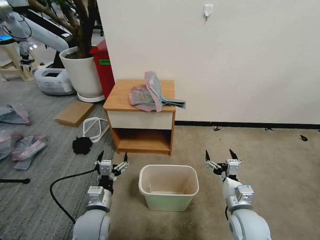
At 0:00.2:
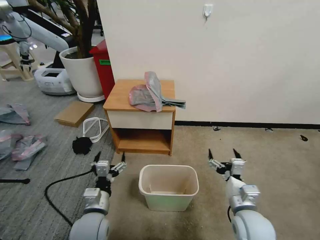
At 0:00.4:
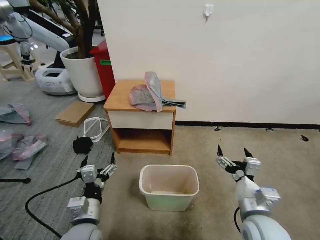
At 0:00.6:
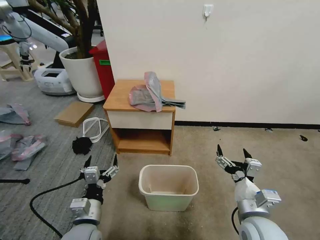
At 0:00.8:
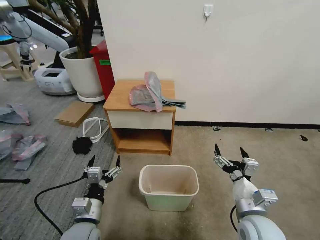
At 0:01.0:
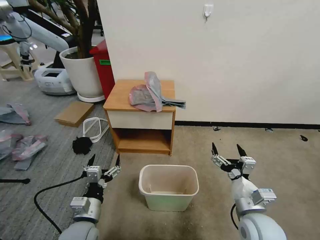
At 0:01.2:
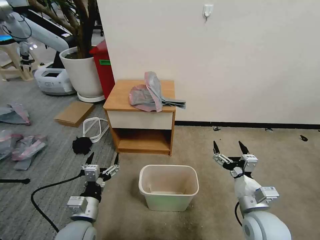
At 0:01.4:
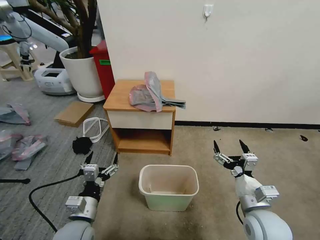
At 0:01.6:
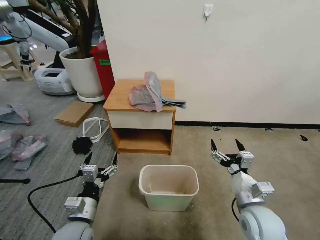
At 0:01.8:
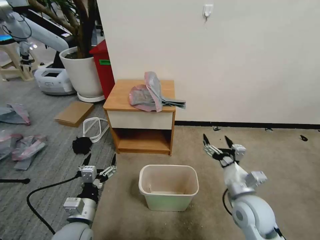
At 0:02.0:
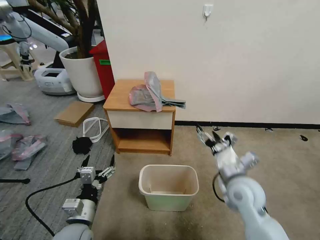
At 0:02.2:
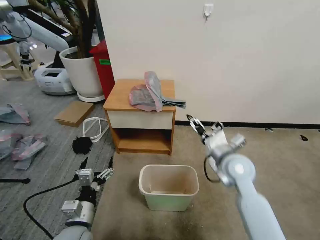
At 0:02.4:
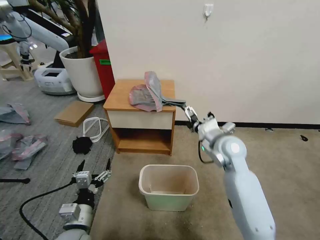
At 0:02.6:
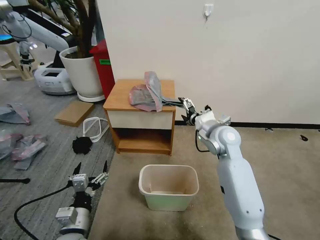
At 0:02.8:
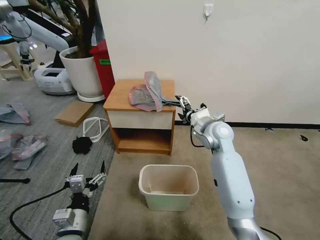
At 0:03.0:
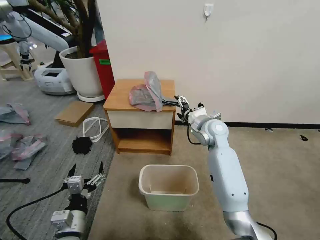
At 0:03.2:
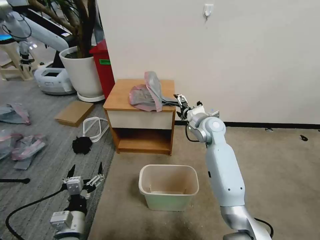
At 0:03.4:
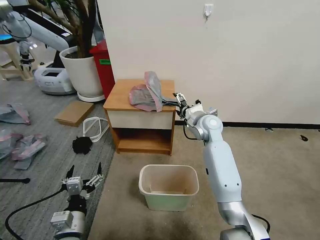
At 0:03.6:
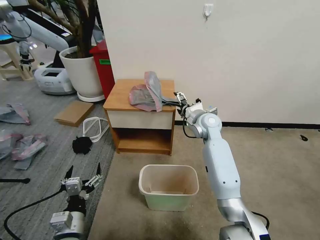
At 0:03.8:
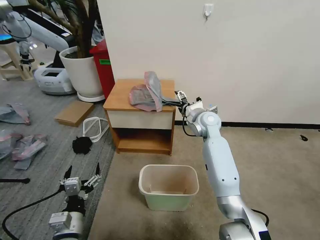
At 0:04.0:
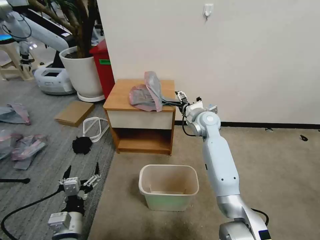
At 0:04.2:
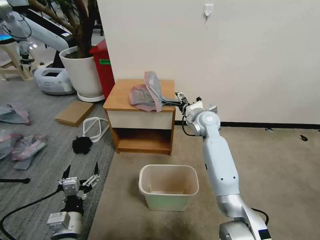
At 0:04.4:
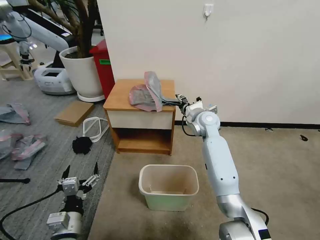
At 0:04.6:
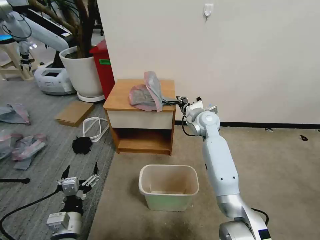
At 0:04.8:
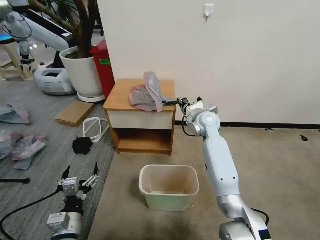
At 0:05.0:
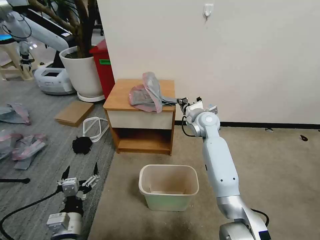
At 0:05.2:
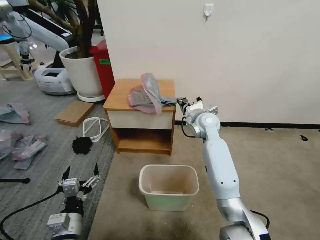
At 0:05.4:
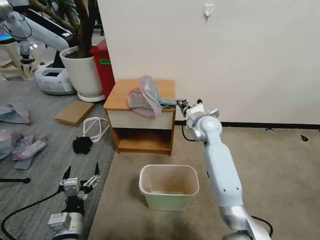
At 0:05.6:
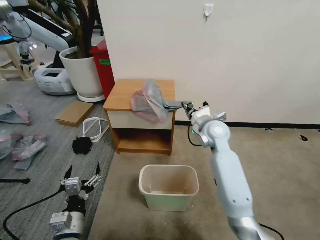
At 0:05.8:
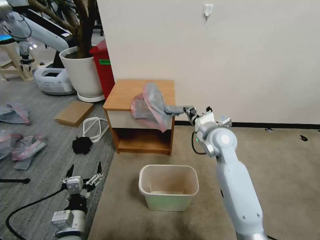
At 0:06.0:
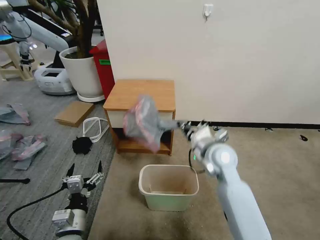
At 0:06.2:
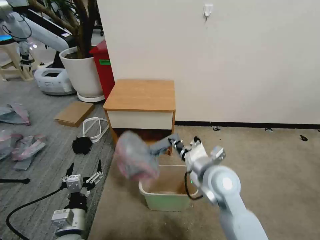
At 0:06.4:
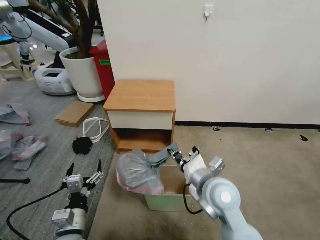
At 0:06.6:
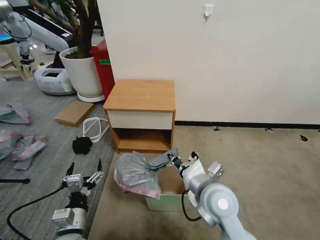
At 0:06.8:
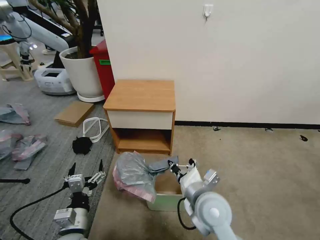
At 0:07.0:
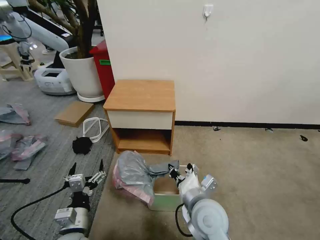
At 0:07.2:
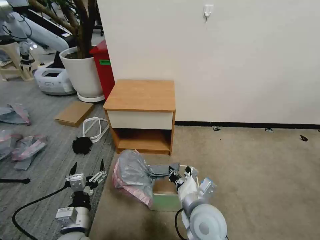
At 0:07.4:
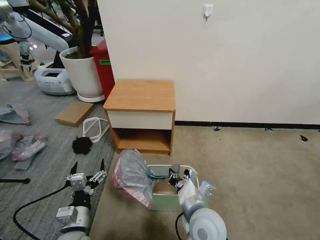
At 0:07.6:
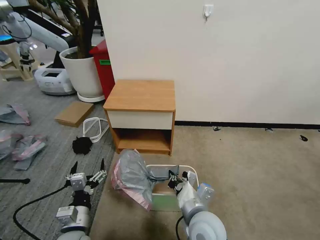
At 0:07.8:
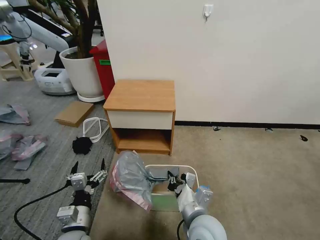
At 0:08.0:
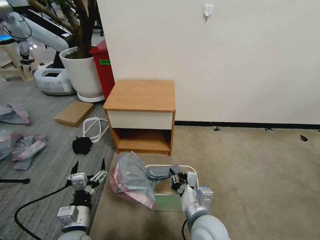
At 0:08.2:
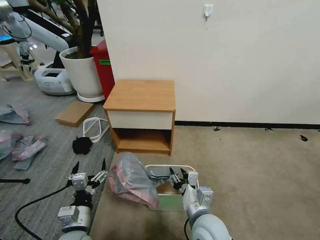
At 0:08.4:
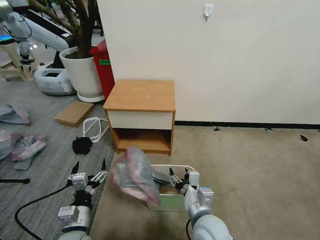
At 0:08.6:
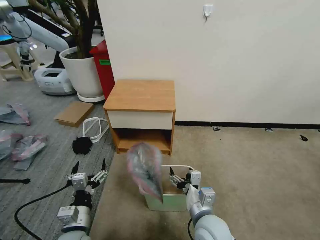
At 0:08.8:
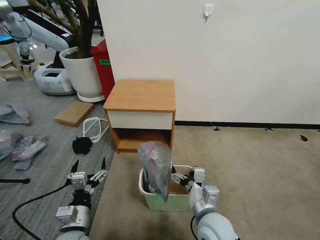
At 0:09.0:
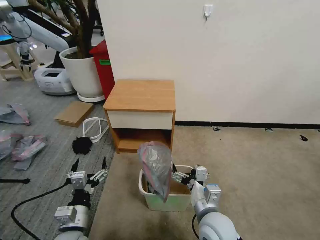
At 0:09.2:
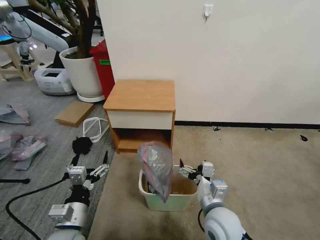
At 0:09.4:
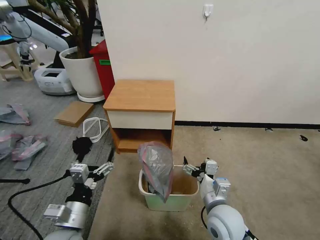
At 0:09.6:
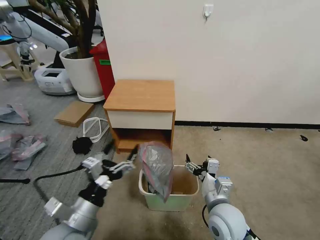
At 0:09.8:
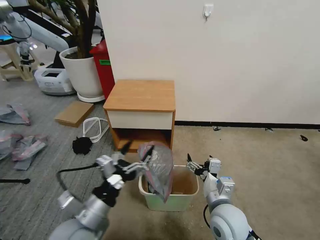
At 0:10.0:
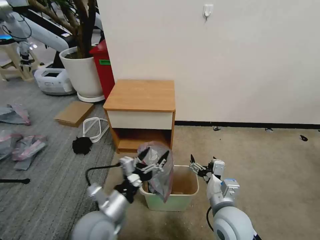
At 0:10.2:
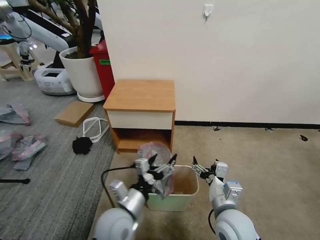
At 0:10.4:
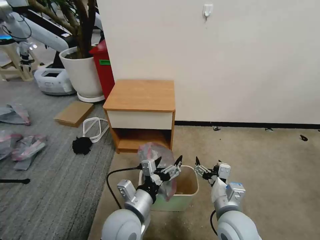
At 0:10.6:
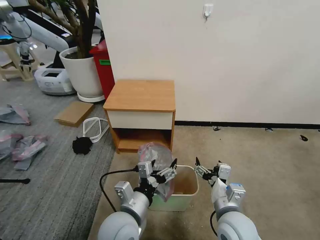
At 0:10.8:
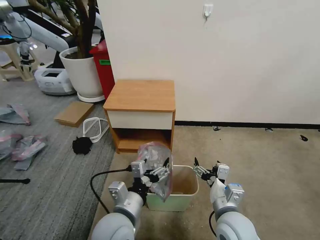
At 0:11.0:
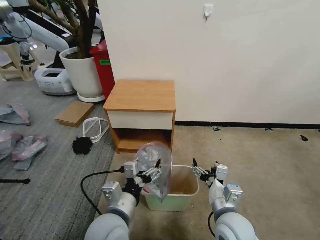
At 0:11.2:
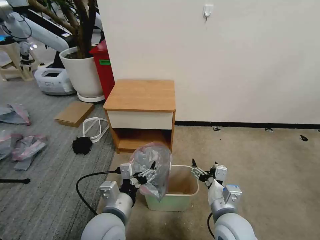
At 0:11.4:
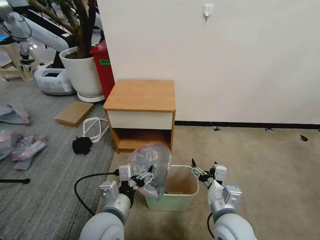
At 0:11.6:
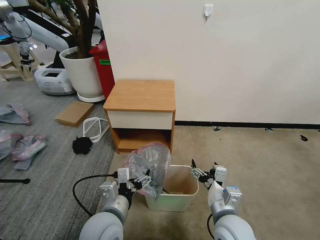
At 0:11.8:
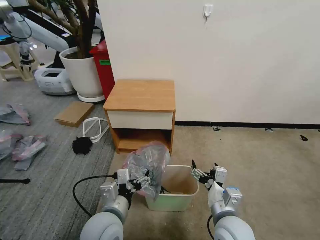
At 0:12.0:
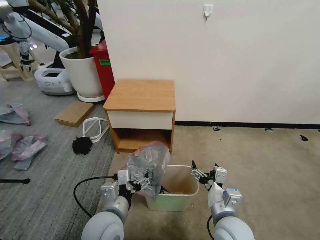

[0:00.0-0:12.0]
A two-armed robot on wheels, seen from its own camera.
Task of the whole recording: Pick up the garbage bag from the table and place it over the trash can.
0:01.6 to 0:03.0: The right gripper shifts roughly 25 cm forward.
0:03.0 to 0:04.4: The right gripper closes its fingers.
0:04.4 to 0:06.0: The right gripper heads backward, covering about 20 cm, and closes.
0:06.0 to 0:07.6: The right gripper is displaced backward and downward by about 15 cm.
0:07.6 to 0:09.0: The right gripper opens.
0:09.0 to 0:10.4: The left gripper goes some 15 cm to the right.

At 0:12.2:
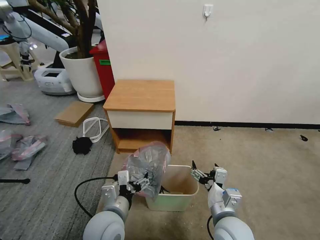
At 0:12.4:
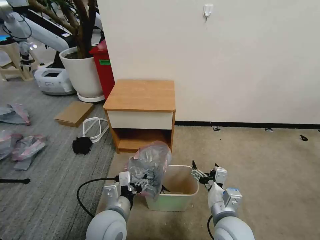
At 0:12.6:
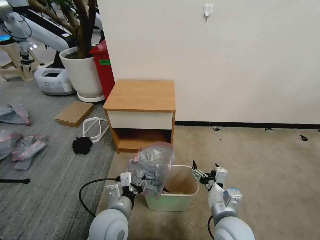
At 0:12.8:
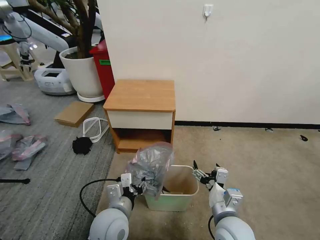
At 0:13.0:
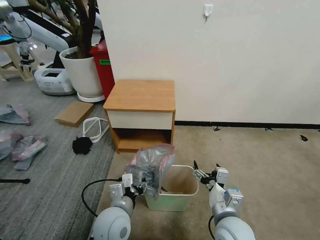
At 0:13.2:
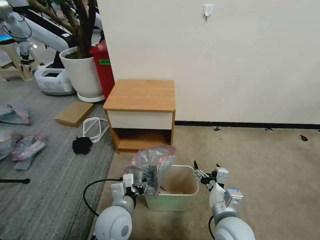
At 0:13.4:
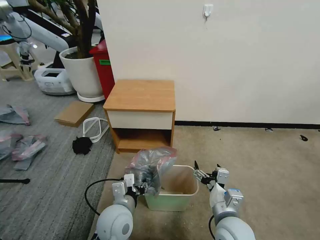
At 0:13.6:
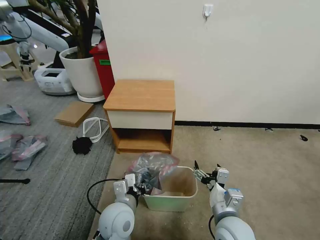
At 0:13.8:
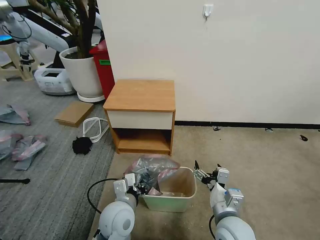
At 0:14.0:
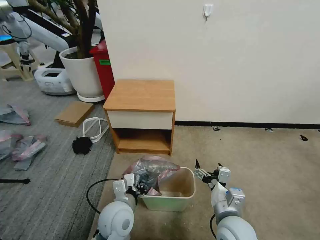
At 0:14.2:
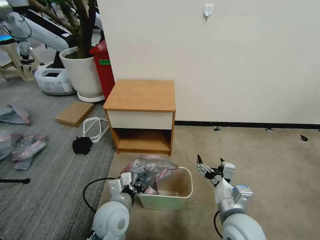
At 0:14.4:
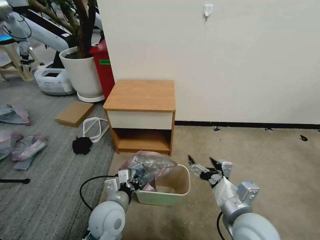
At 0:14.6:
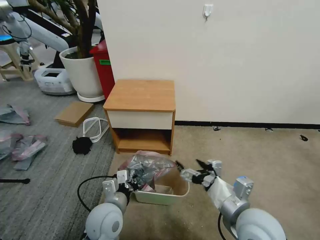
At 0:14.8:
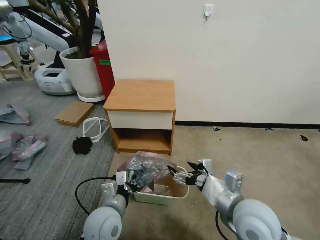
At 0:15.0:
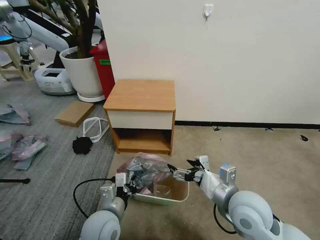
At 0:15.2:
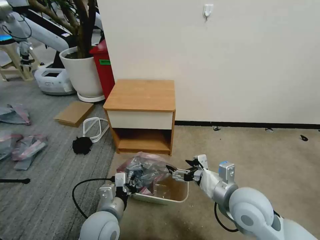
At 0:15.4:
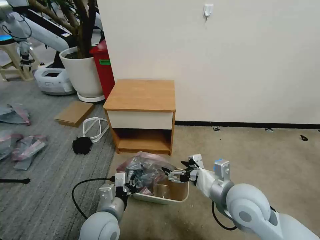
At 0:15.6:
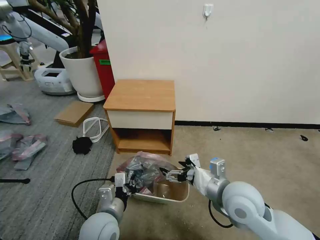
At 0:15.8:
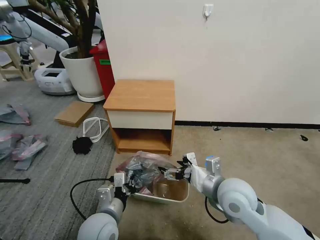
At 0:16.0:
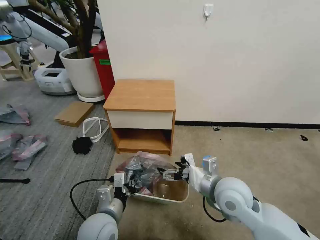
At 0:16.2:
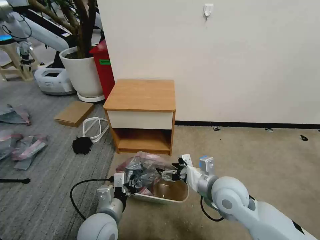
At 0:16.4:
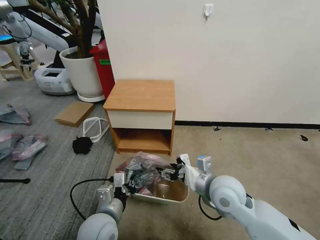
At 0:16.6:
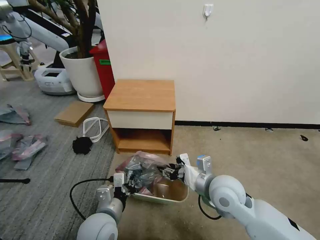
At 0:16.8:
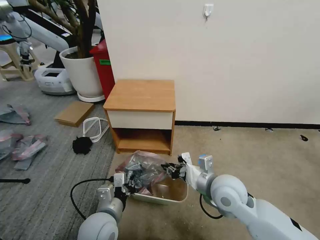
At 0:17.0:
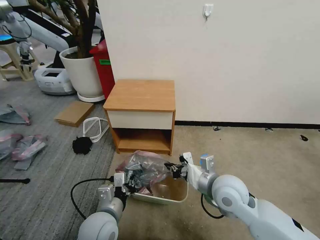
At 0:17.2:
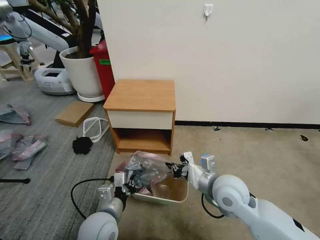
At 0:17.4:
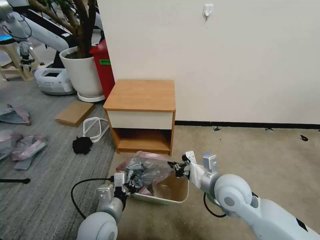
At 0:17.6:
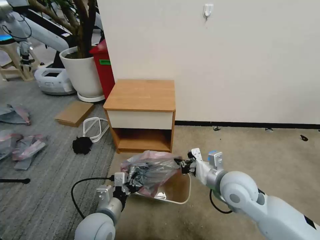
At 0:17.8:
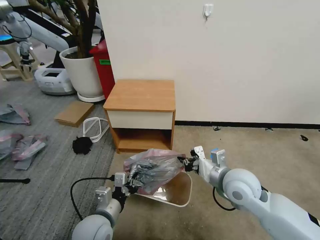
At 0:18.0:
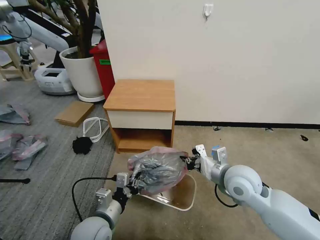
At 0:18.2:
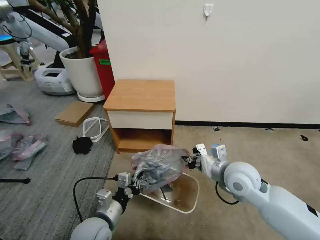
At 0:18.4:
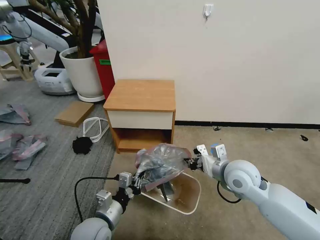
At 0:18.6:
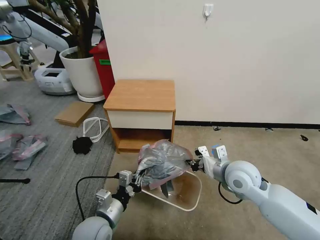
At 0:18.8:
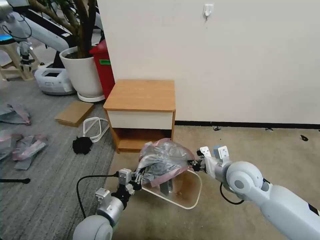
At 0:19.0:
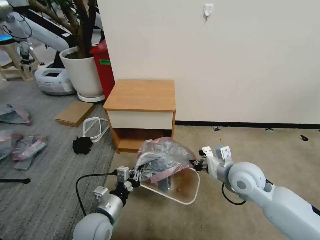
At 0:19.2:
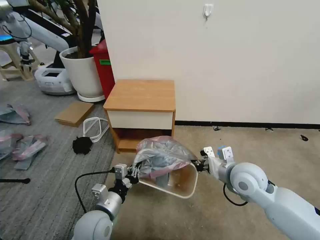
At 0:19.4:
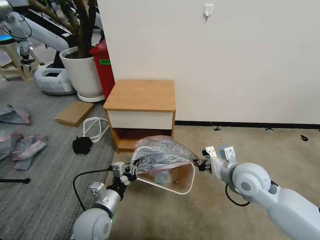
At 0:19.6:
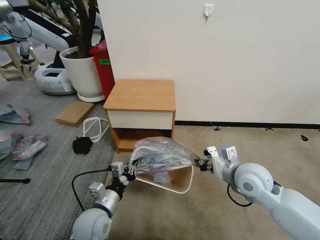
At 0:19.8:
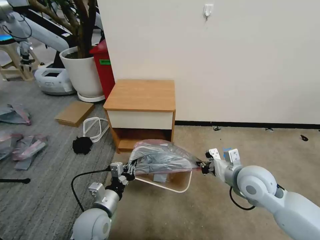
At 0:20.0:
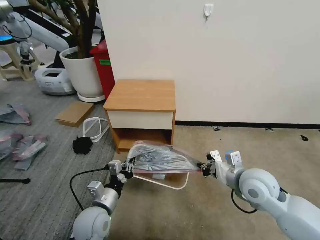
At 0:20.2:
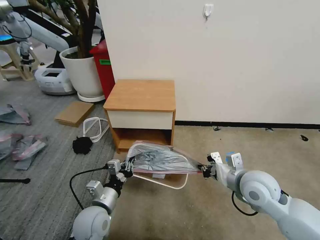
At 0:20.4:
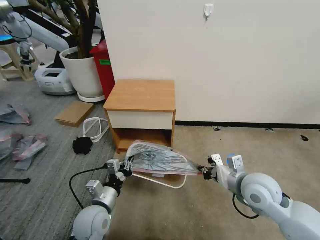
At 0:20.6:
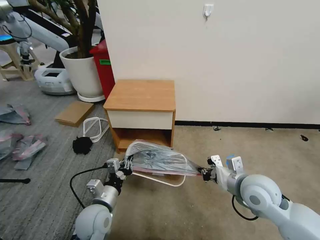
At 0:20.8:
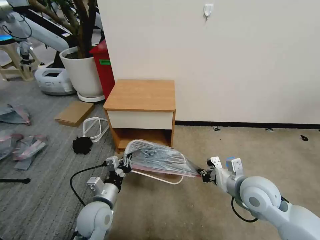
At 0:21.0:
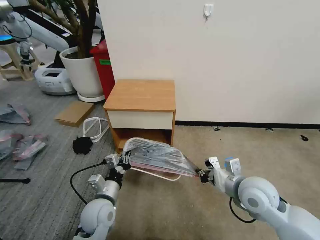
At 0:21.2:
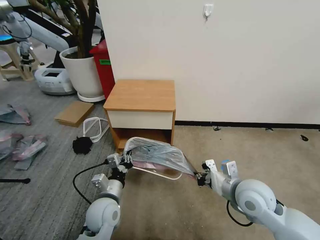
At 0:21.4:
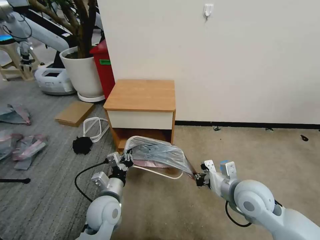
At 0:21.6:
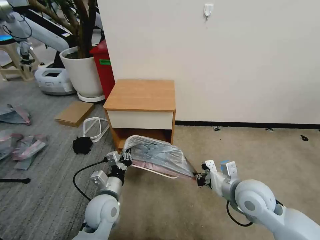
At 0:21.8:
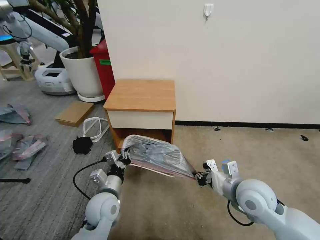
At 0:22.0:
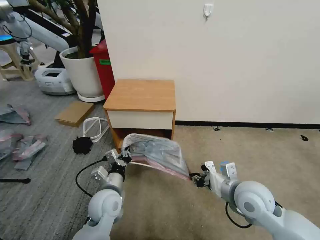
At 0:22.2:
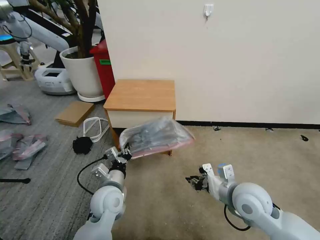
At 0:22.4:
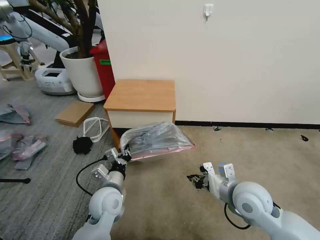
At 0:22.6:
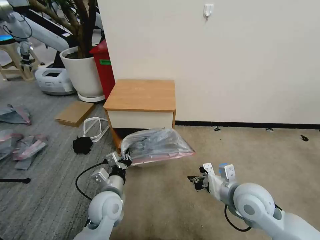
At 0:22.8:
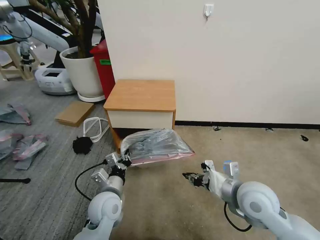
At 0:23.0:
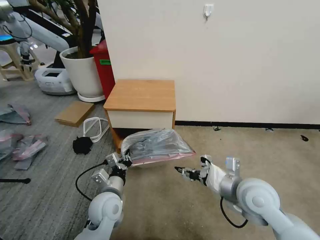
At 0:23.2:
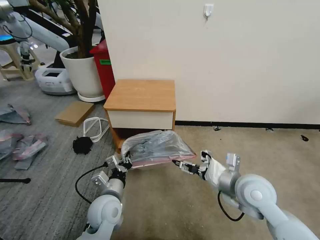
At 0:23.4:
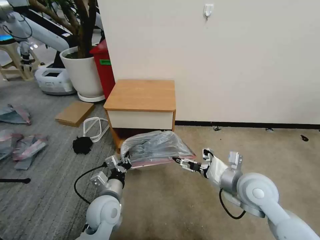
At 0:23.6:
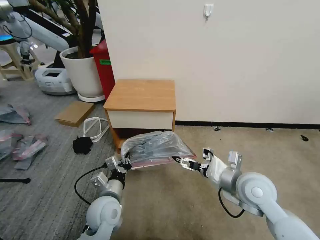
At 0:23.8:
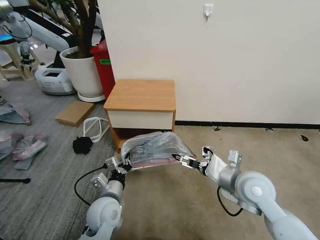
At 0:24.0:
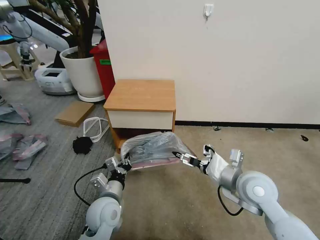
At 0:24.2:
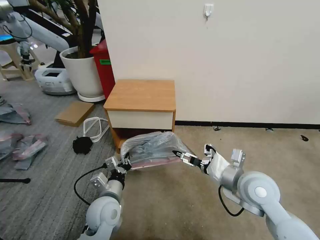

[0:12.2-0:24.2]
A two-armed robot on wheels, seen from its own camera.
Task of the whole recording: Pick up the garbage bag from the table and place it over the trash can.
0:12.2 to 0:13.8: The left gripper shifts by some 5 cm, and closes up.
0:13.8 to 0:15.2: The right gripper shifts approximately 10 cm upward.
0:15.2 to 0:16.6: The right gripper ends up roughly 5 cm from where it was, and closes its fingers.
0:16.6 to 0:18.2: The right gripper shifts some 5 cm to the right, and closes its fingers.
0:18.2 to 0:19.8: There are only small adjustments of the grippers.
0:19.8 to 0:21.2: The grippers move only a little.
0:21.2 to 0:22.6: There are only small adjustments of the grippers.
0:22.6 to 0:24.2: The right gripper opens up.
